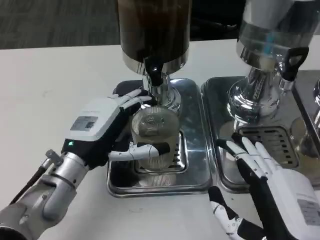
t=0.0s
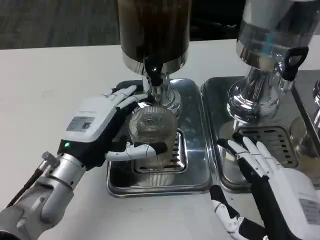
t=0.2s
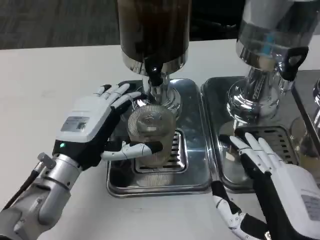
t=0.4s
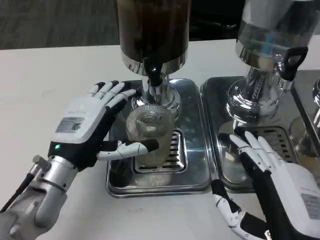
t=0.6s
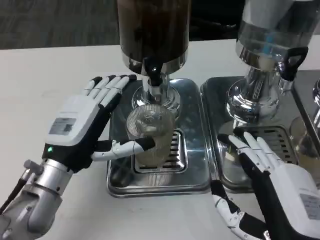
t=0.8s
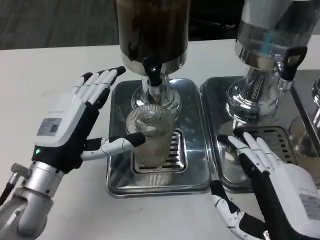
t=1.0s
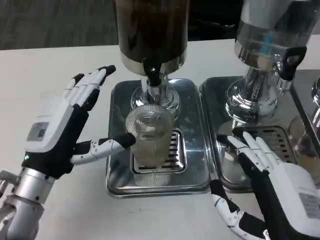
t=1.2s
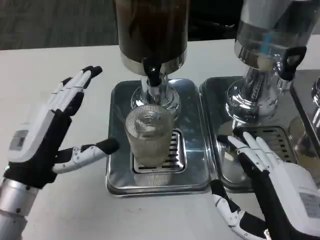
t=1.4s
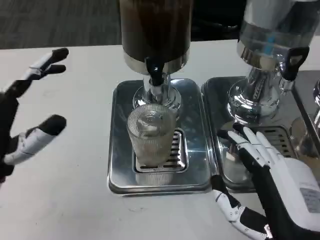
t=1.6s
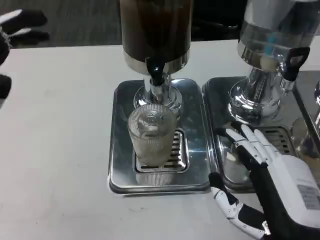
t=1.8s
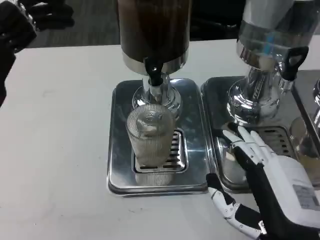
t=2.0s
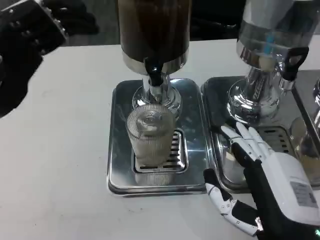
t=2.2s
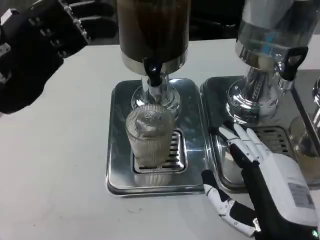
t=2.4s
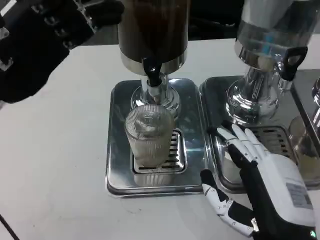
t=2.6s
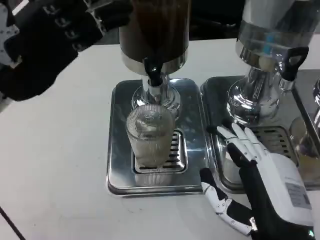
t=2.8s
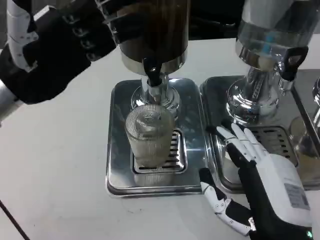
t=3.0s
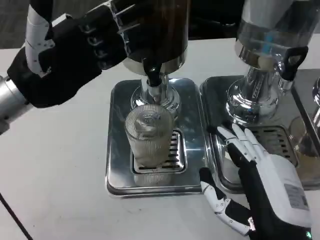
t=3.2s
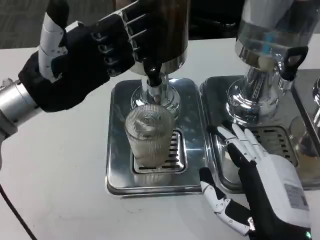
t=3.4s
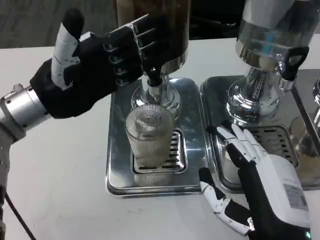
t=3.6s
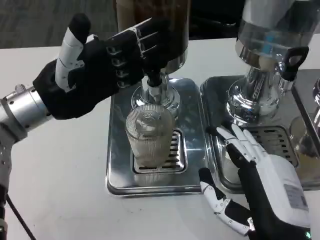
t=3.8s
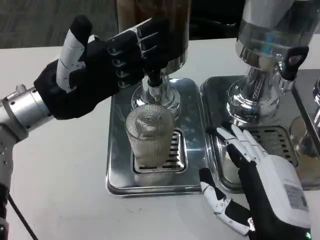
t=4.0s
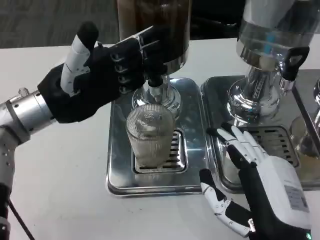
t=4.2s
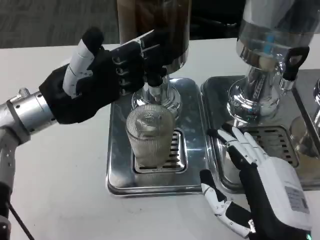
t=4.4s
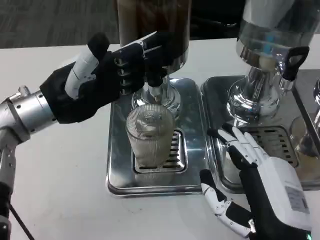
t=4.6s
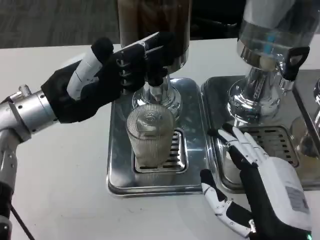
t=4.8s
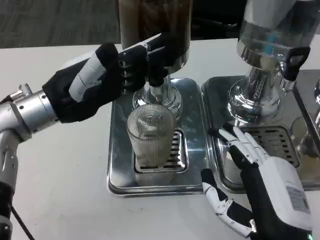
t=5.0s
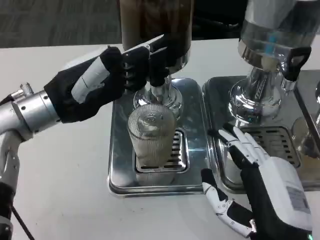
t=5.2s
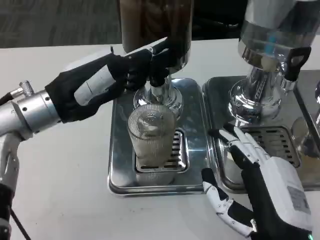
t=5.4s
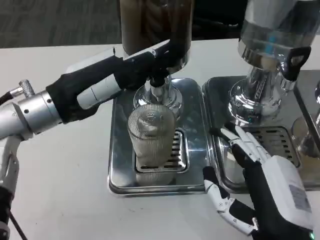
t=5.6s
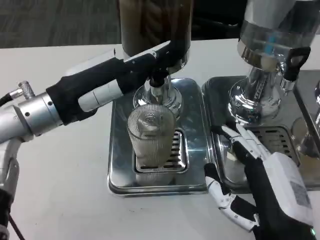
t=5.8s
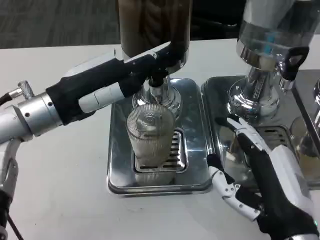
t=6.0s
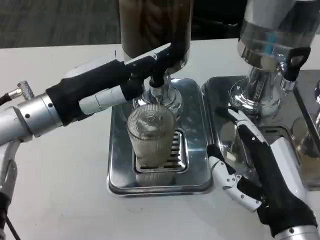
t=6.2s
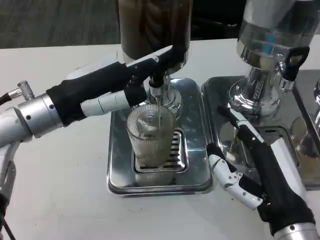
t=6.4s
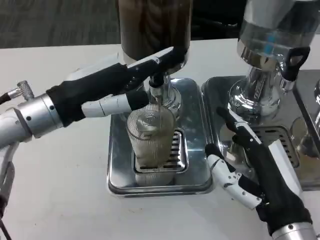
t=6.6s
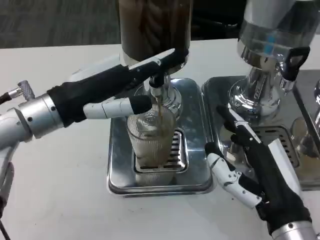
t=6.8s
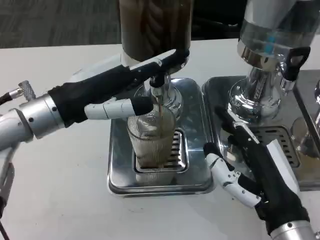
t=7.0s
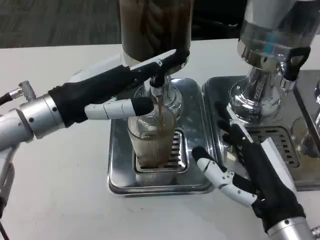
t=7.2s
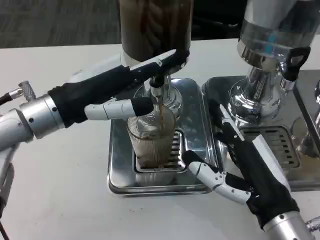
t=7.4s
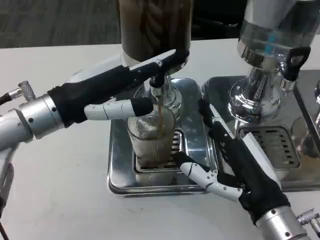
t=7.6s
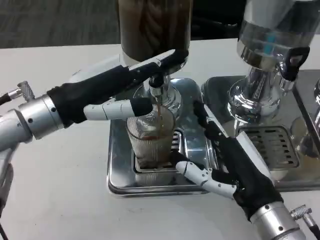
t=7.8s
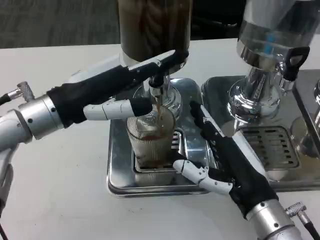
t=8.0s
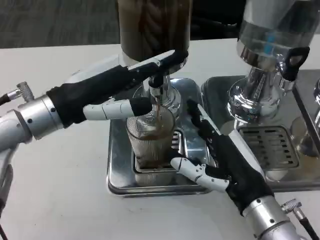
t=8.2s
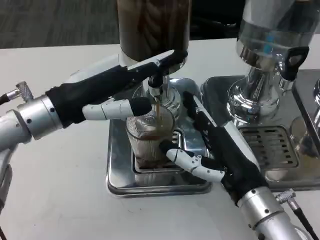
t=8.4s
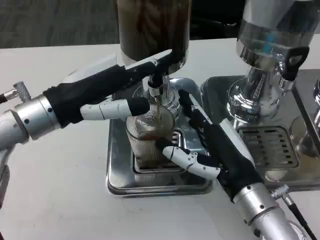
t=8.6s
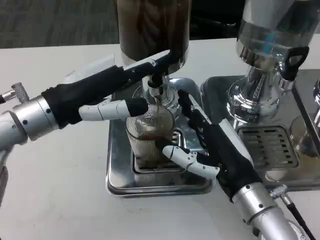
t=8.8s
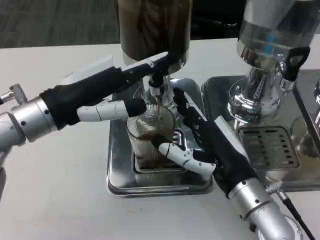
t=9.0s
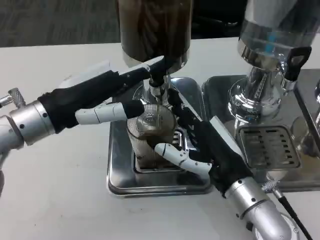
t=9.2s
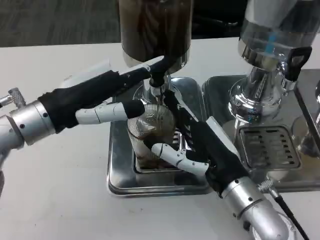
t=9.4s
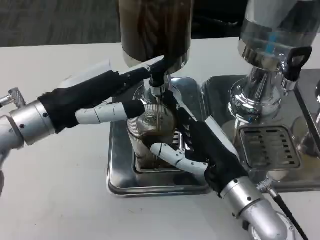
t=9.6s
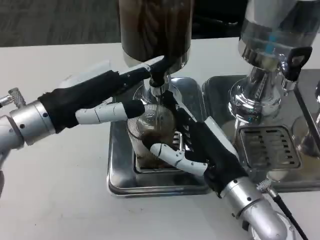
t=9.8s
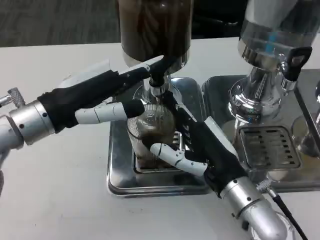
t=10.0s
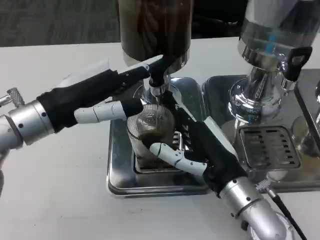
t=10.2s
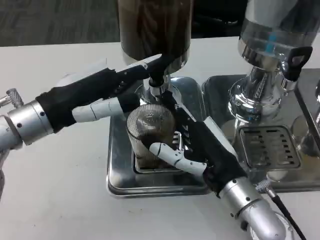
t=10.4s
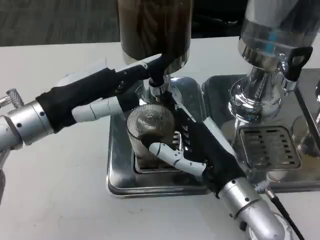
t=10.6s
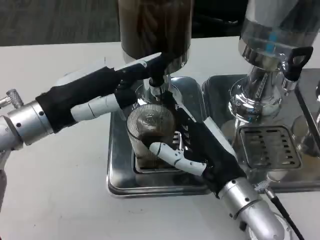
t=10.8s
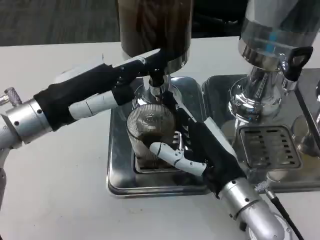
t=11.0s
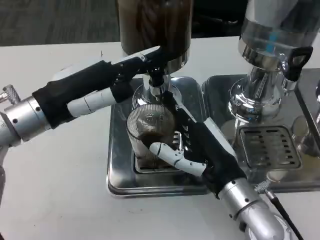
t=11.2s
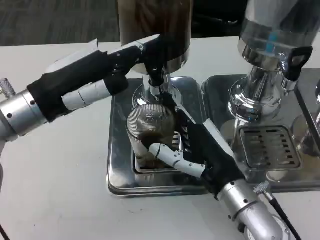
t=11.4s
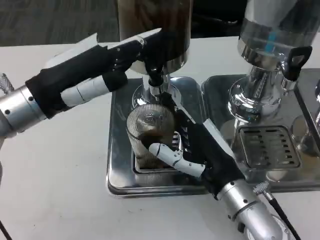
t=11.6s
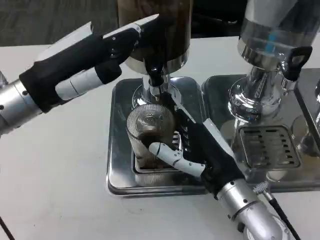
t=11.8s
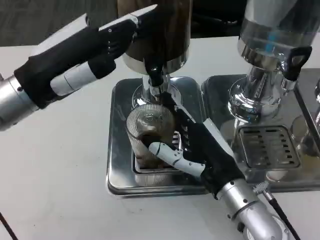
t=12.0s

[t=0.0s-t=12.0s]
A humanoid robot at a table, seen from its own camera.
Task of the whole recording: Grasp the cup under the faucet to collect the drink, then remove the cup.
t=0.0s to t=1.6s: The left hand goes approximately 10 cm to the left and backward.
t=1.6s to t=3.0s: The left hand is displaced forward and upward by some 15 cm.
t=7.6s to t=9.0s: The right hand ends up about 5 cm from where it was.
t=9.0s to t=10.4s: Both hands stay about where they are.

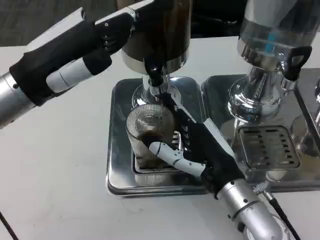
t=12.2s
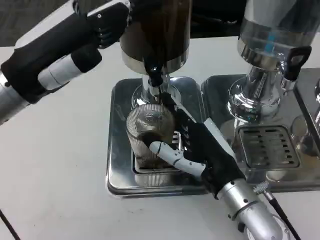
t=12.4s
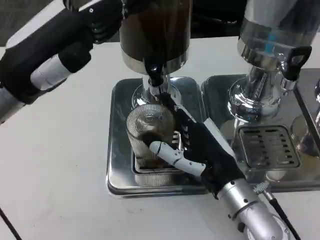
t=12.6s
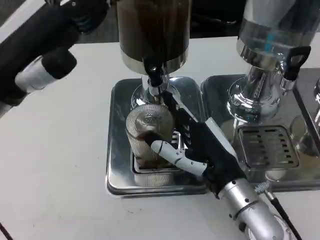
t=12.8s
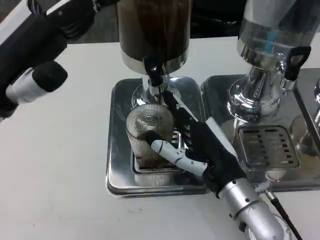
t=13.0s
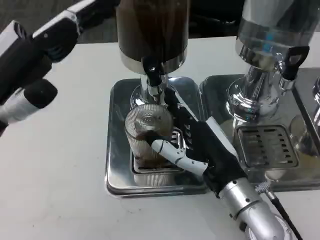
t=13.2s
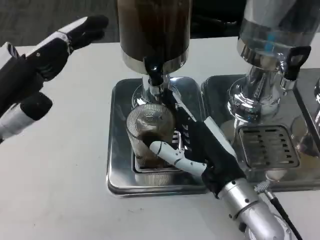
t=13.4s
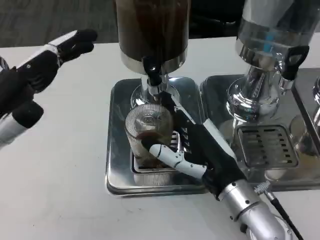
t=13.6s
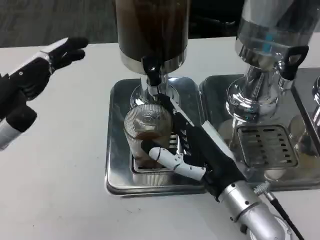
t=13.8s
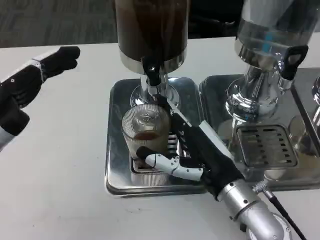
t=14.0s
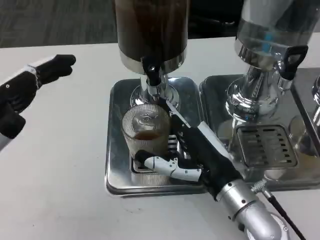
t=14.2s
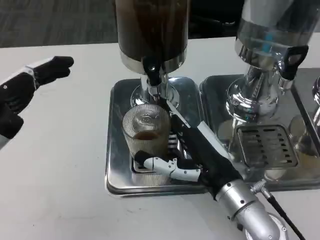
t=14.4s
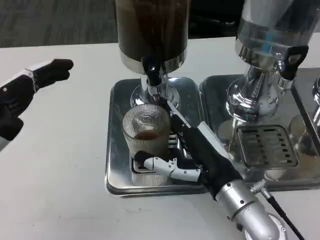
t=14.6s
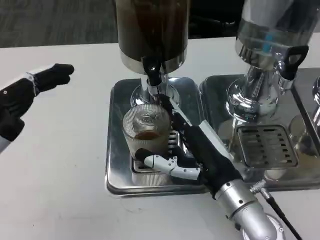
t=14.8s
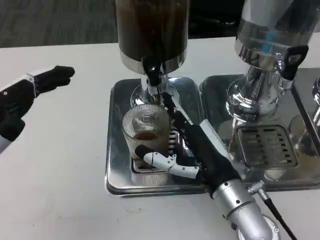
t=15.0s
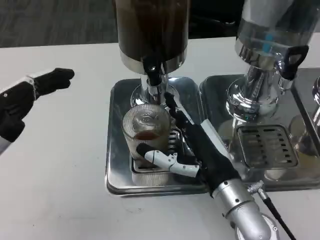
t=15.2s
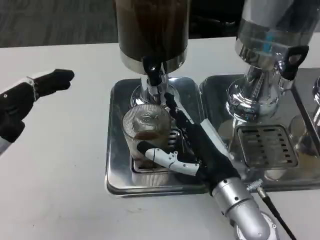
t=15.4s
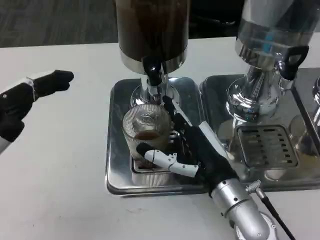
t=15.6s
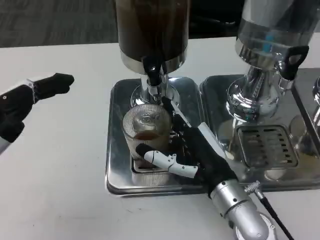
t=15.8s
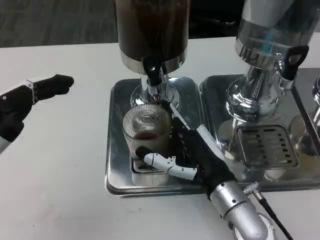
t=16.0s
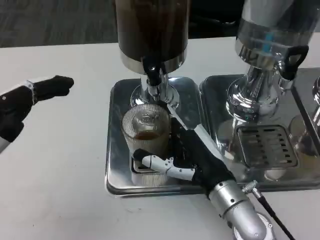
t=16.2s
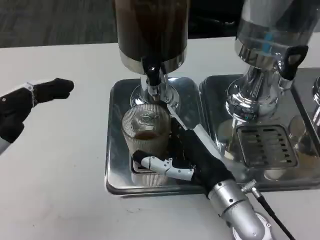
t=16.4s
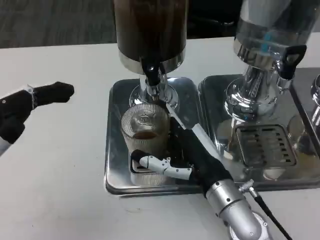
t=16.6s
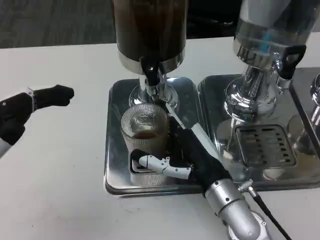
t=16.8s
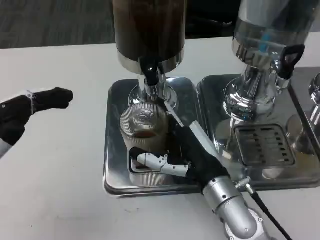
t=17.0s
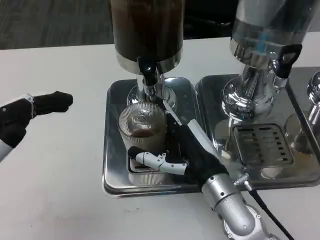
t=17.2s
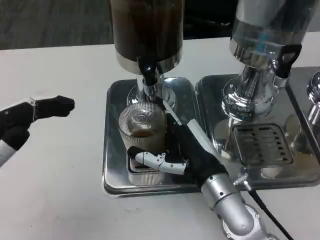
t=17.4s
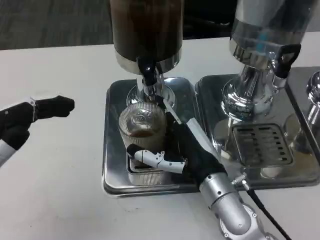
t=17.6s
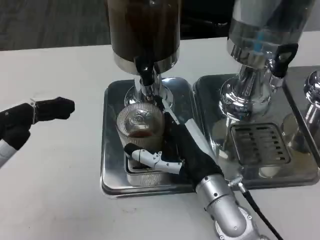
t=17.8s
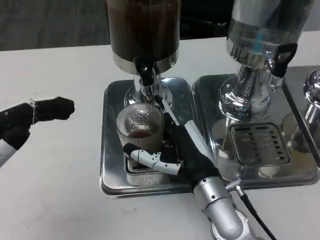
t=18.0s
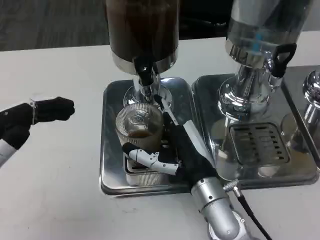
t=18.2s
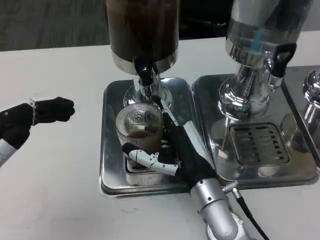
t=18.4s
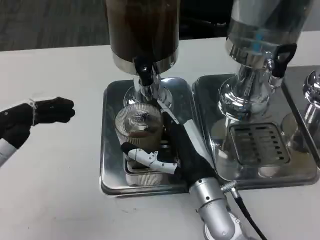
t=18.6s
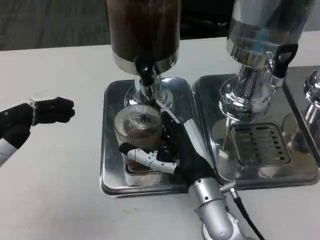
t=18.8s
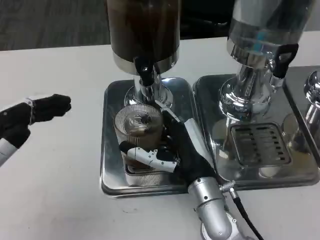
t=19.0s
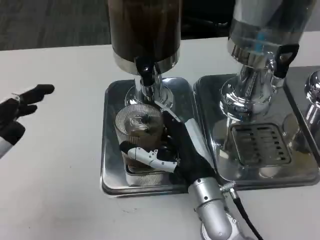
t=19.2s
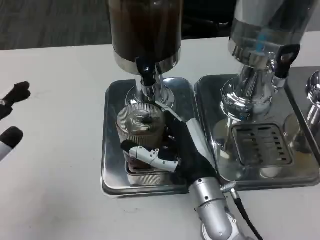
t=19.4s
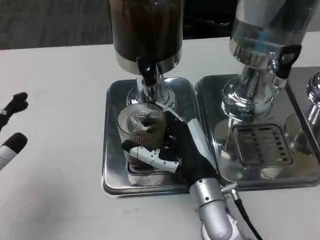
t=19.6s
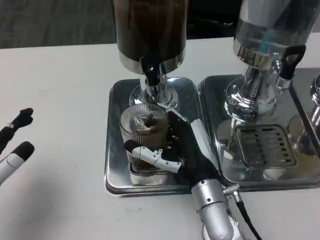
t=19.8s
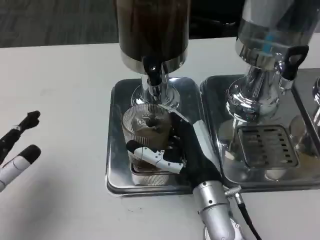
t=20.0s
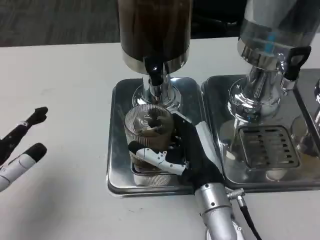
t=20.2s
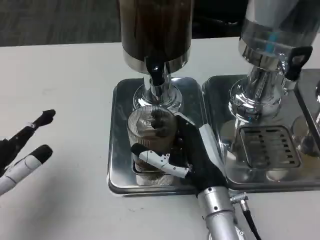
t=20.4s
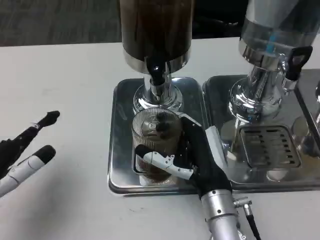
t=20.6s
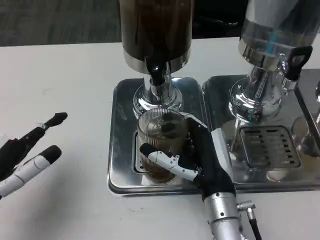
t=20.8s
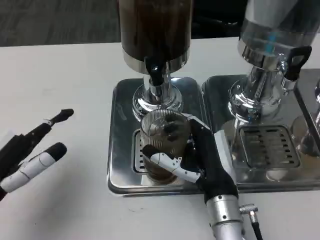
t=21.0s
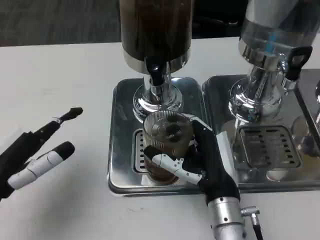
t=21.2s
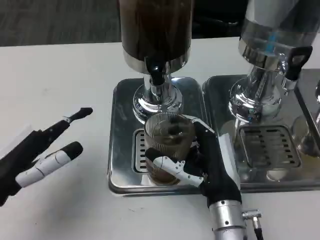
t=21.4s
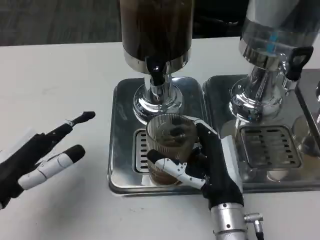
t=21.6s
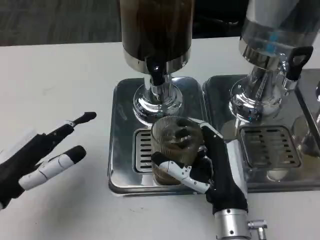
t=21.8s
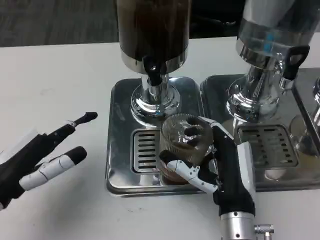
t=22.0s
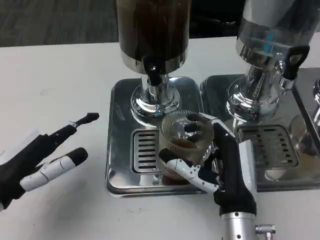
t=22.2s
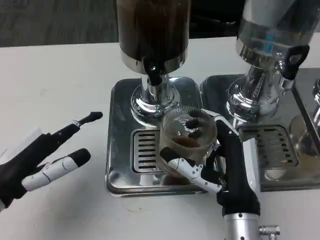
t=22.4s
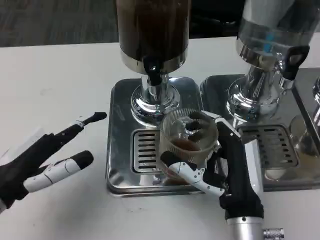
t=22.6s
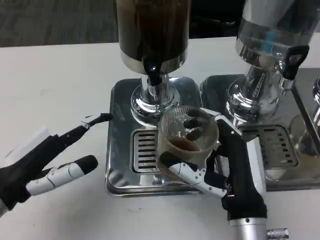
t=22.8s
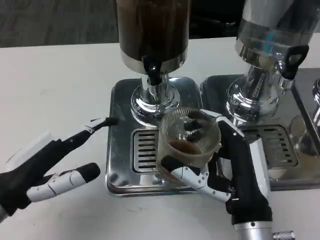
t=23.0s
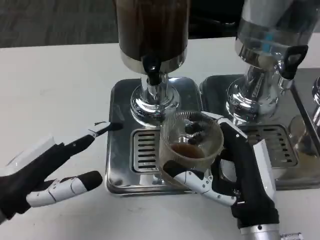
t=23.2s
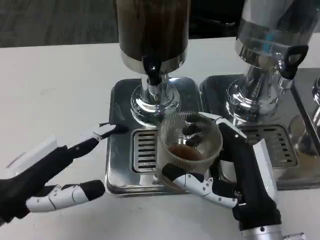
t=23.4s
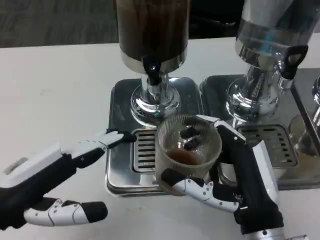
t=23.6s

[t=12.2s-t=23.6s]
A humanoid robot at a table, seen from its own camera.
Task of the whole recording: Grasp the cup under the faucet to collect the drink, then remove the cup.
t=12.2s to t=13.6s: The left hand shifts some 10 cm backward.
t=13.6s to t=16.4s: The hands make only small movements.
t=17.8s to t=19.4s: The hands stay close to where they were, moving slightly.
t=22.2s to t=23.6s: The right hand changes place by roughly 5 cm.
